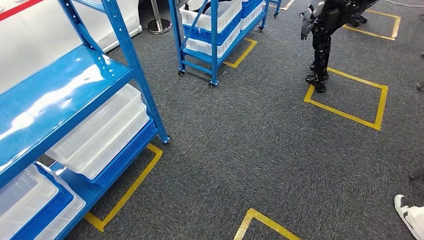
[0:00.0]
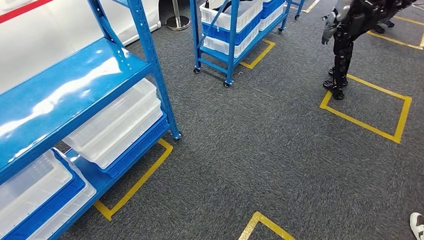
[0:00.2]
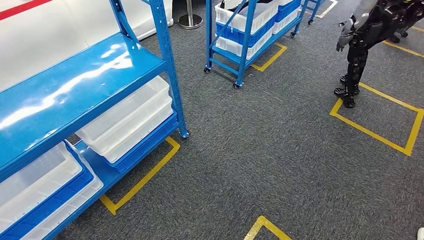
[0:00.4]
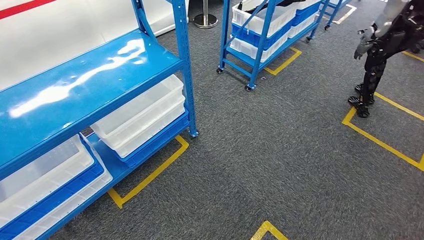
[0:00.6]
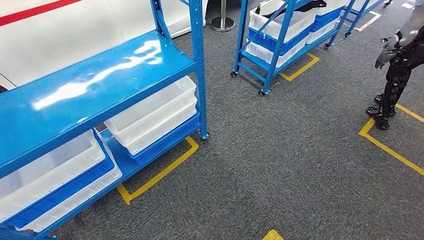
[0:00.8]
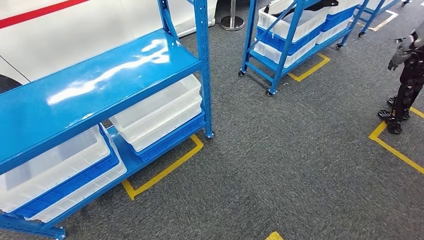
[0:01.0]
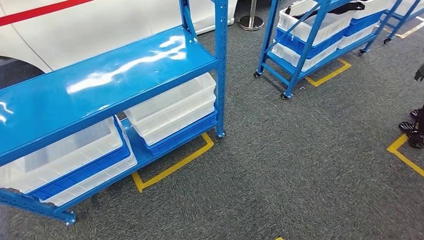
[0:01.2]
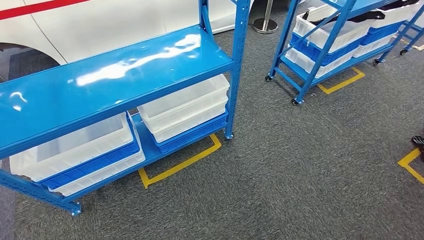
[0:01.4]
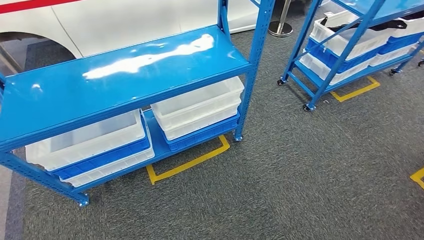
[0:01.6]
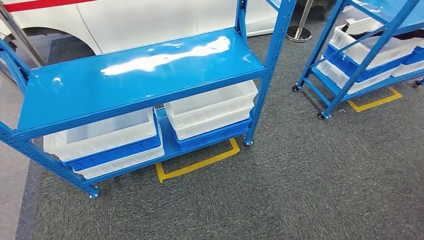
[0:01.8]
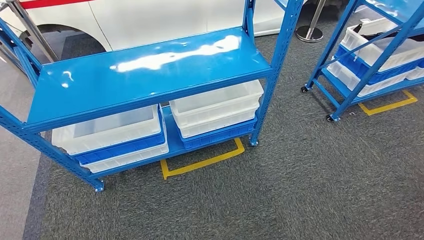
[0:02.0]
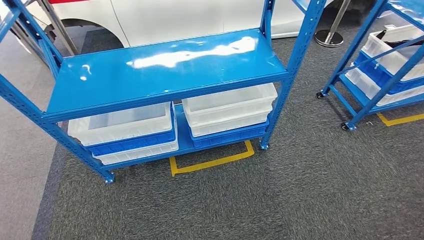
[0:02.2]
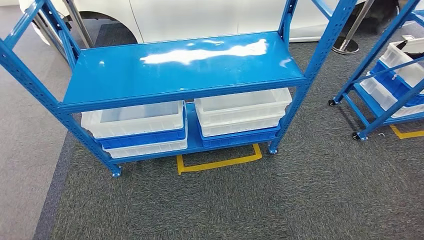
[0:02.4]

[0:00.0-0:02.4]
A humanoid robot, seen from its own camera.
Step, 0:00.0 to 0:02.4: Move to the initial position of the shelf.
